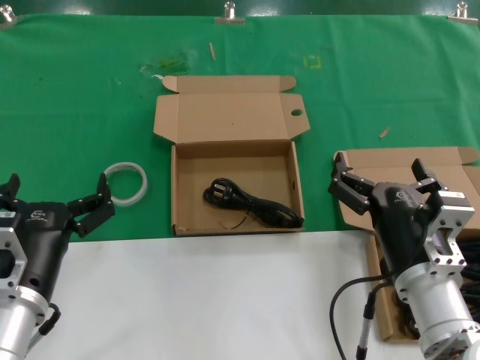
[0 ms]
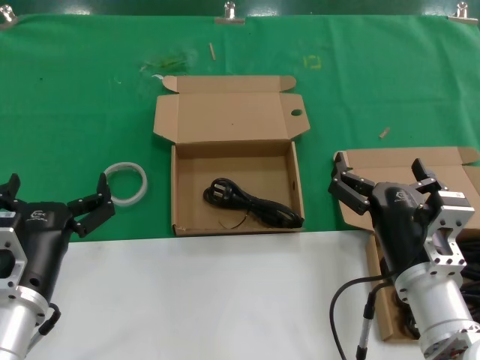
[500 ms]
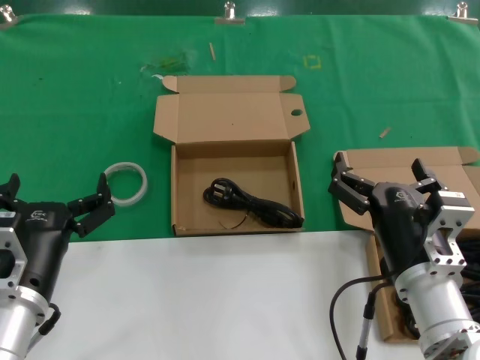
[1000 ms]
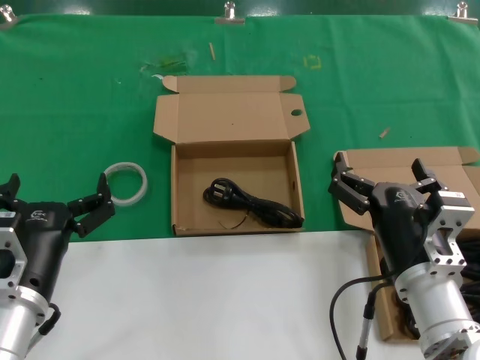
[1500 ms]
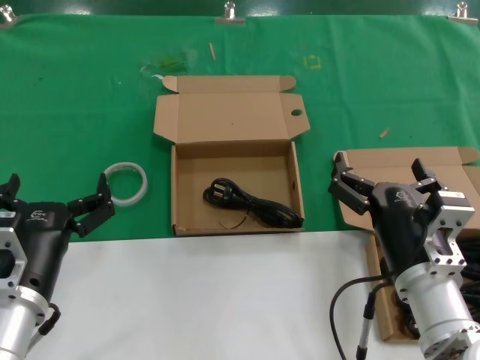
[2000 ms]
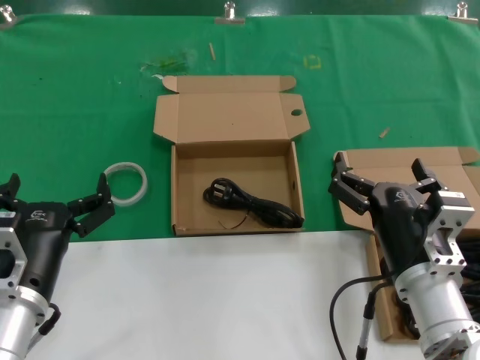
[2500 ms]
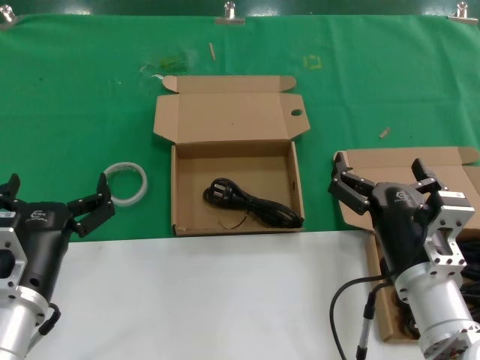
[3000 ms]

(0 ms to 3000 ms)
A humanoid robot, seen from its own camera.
Task of the whole recording: take the parts from the box containing them and put them into an empty box.
0 ms - 3000 ms: Both hands stay put.

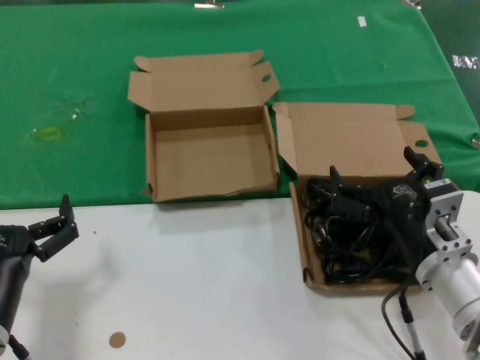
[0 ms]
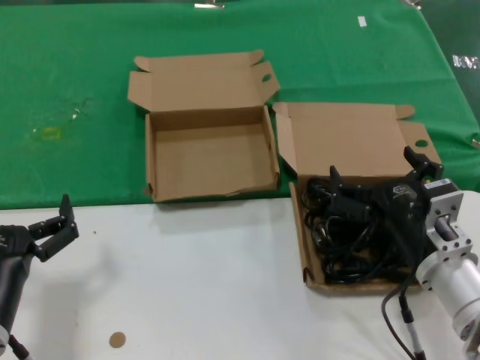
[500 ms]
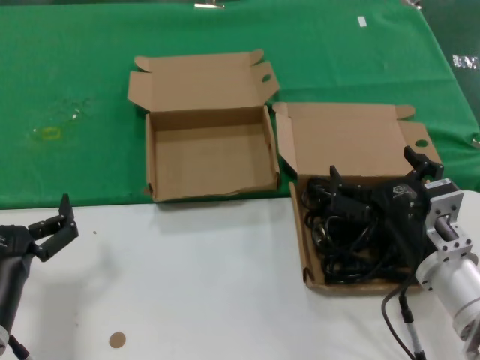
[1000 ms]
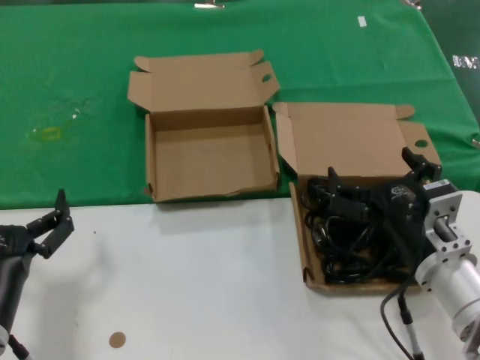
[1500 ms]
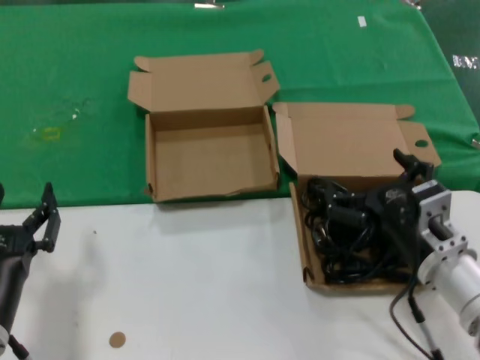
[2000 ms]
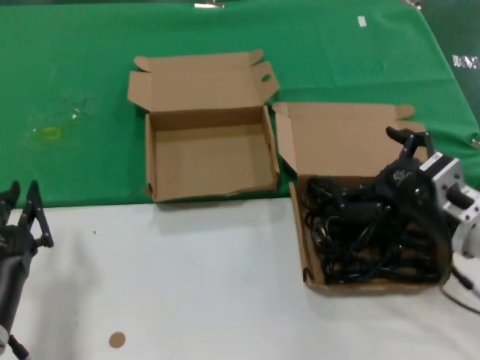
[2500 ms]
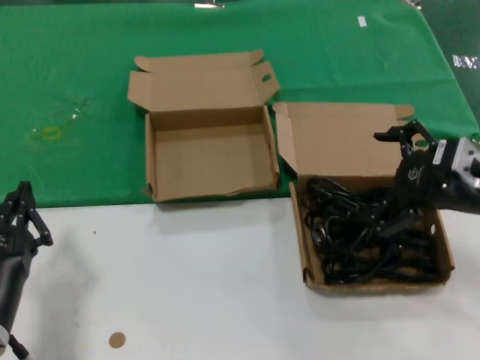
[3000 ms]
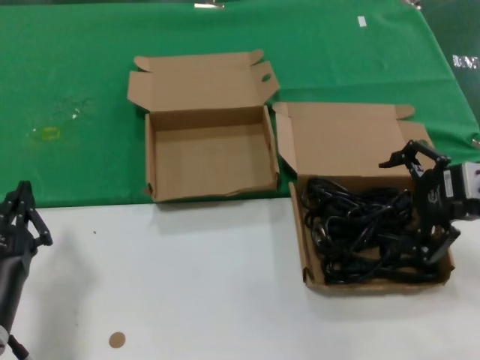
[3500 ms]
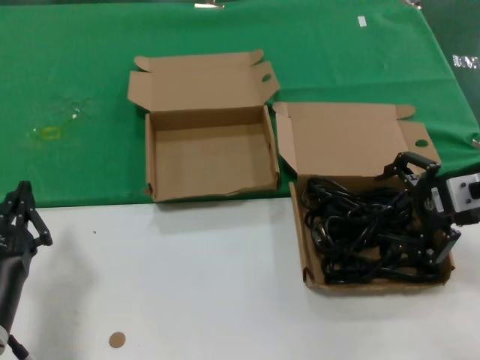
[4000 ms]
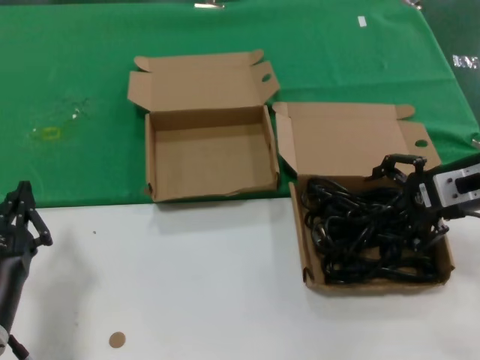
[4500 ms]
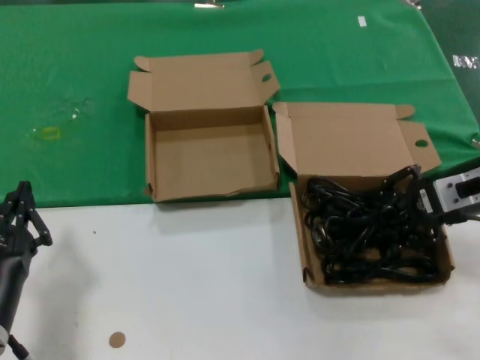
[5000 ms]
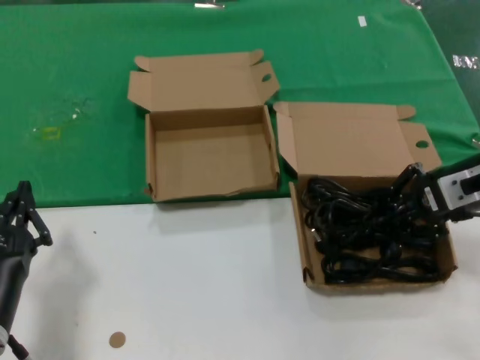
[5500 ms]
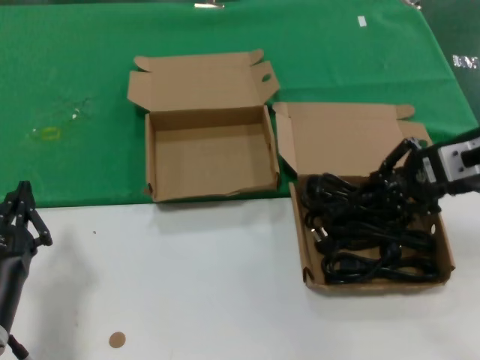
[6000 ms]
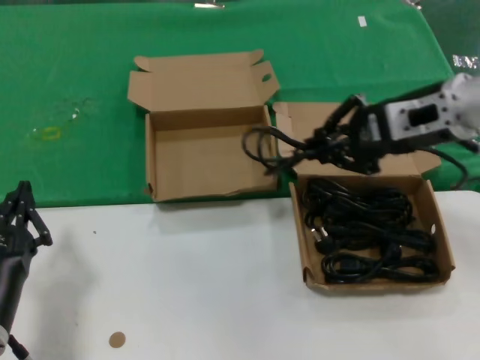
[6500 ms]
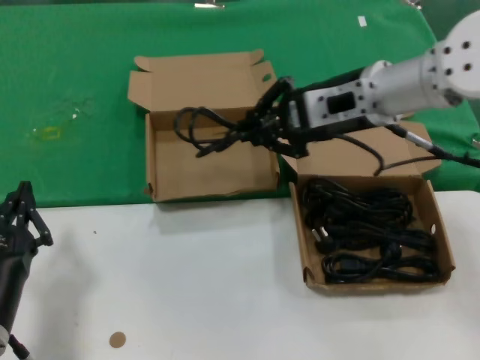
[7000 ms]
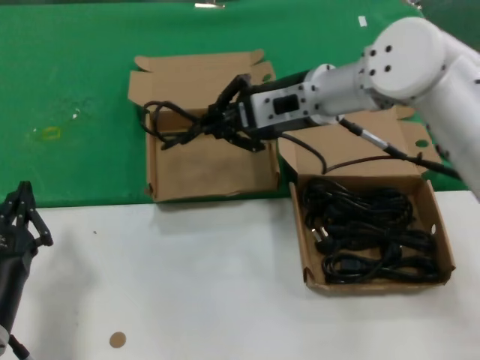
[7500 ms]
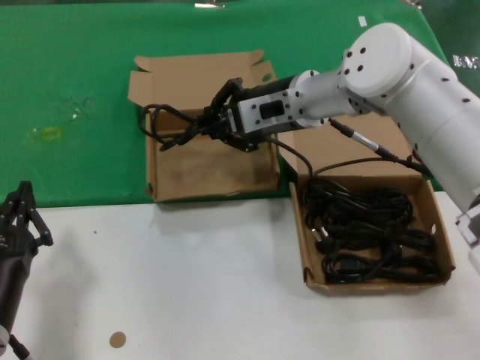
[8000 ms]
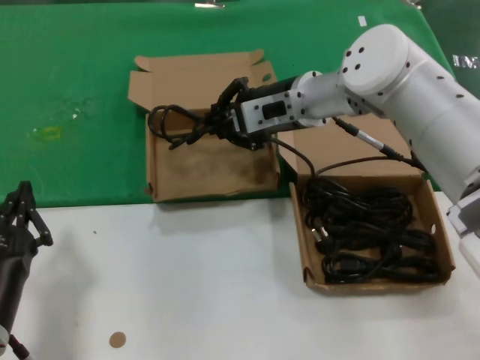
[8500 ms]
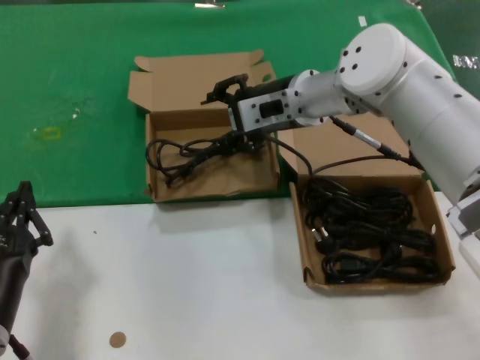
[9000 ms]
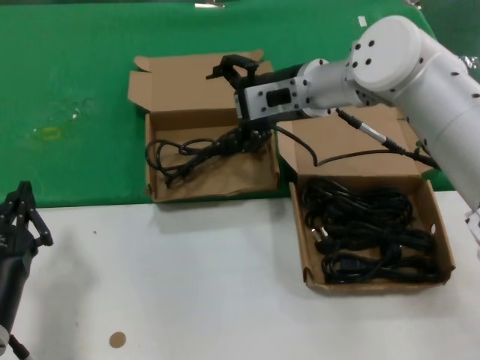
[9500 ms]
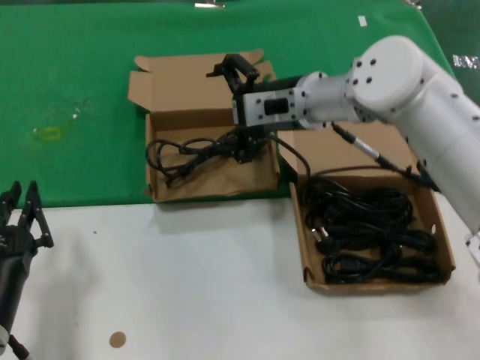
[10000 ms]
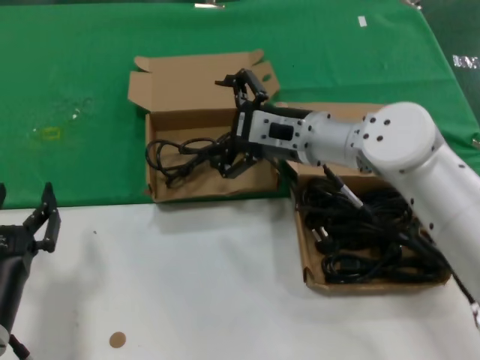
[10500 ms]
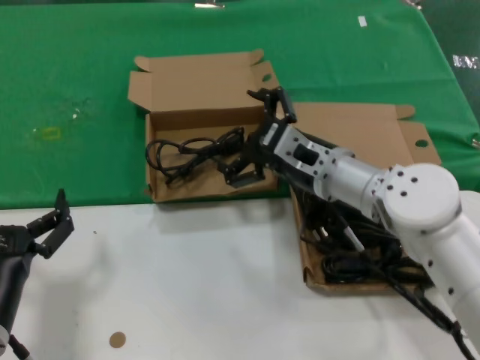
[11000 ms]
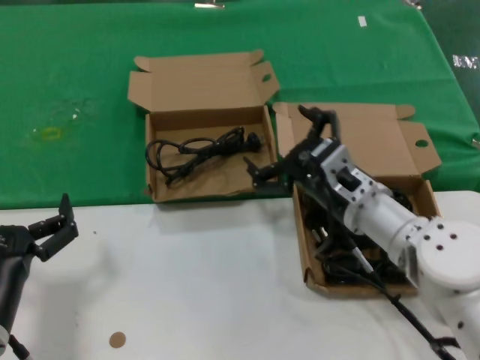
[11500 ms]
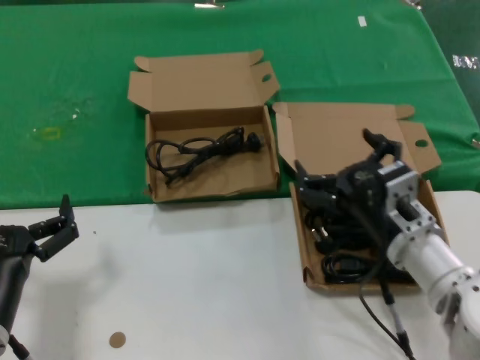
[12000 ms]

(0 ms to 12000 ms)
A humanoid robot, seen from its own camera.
Task of the whole recording: take the parts from the box containing them and put them into an empty box.
Step, 0 ms - 5000 ms: Grasp the data cable.
Step, 5500 ms - 8500 ms: Place the data cable in the another box.
0 ms - 2000 ms: The hands make only small movements.
2000 ms - 4000 ms: The right hand travels upward, to the right and forward by some 20 cm.
4000 ms - 6000 ms: The hands move only a little.
6000 ms - 8000 ms: The right hand goes approximately 25 cm to the left and forward.
8000 ms - 10000 ms: The hands move only a little.
10000 ms - 12000 ms: The right hand shifts some 25 cm backward, downward and to the right.

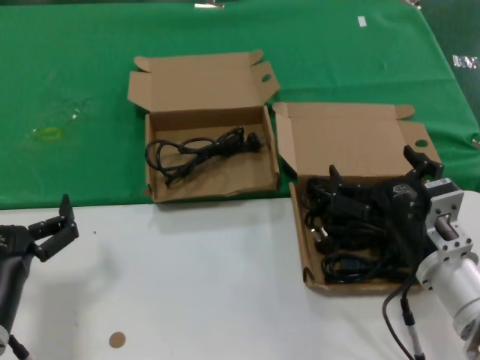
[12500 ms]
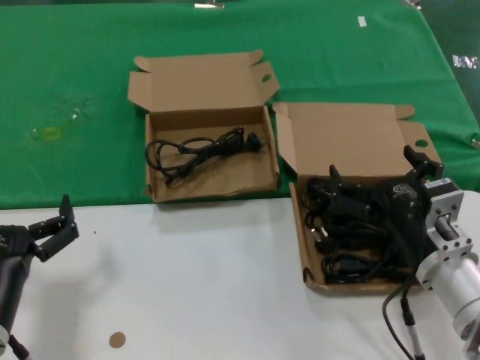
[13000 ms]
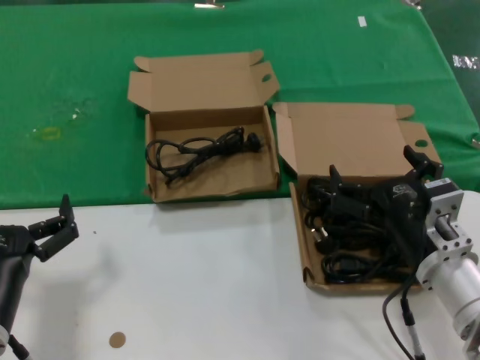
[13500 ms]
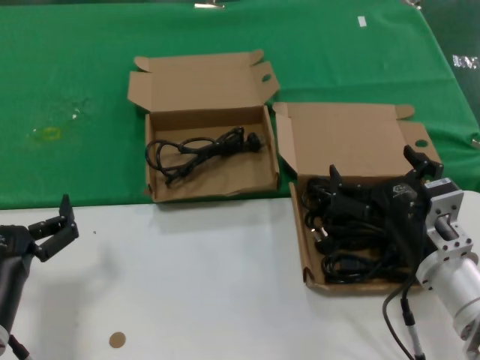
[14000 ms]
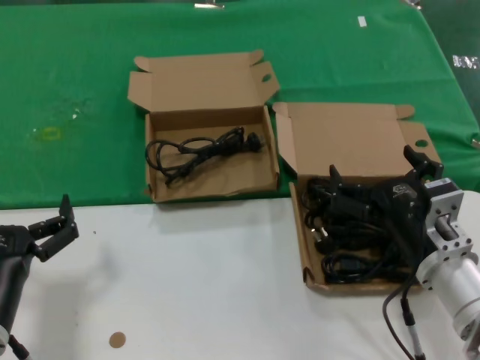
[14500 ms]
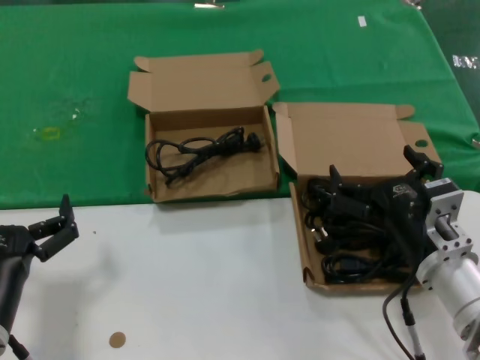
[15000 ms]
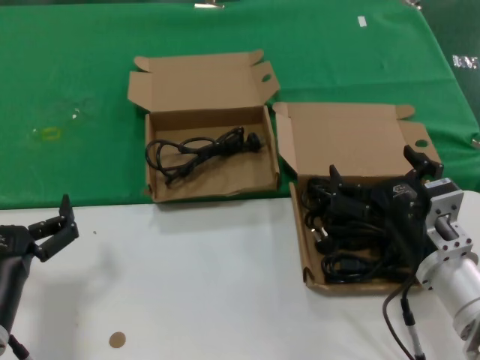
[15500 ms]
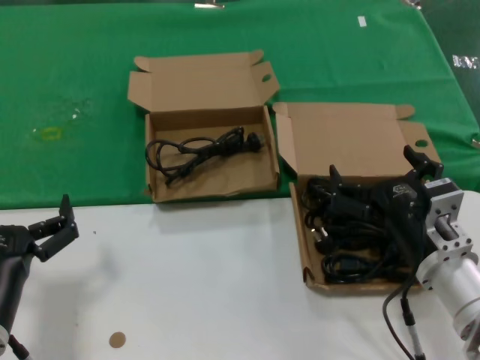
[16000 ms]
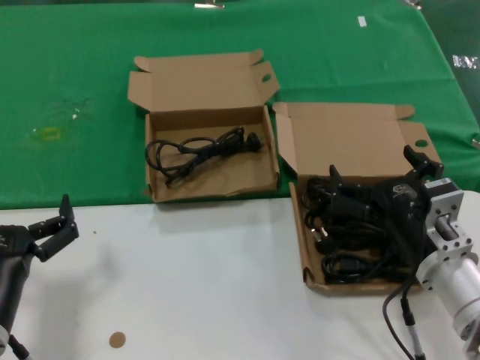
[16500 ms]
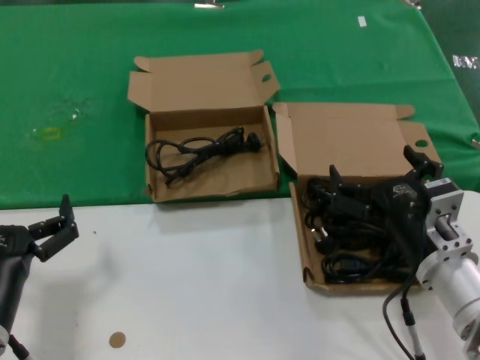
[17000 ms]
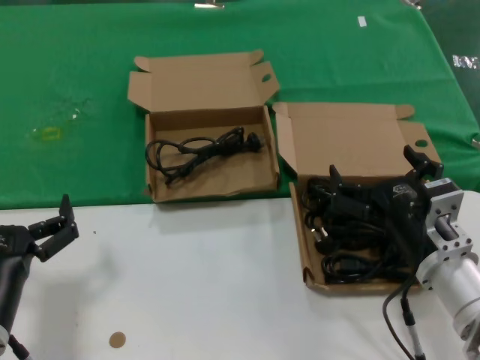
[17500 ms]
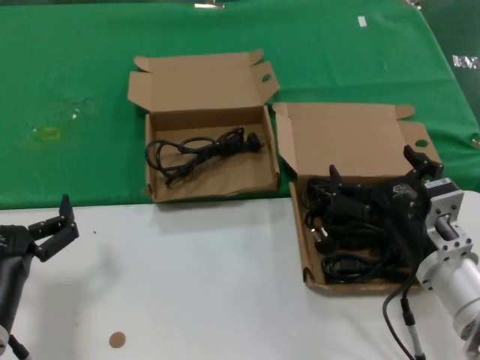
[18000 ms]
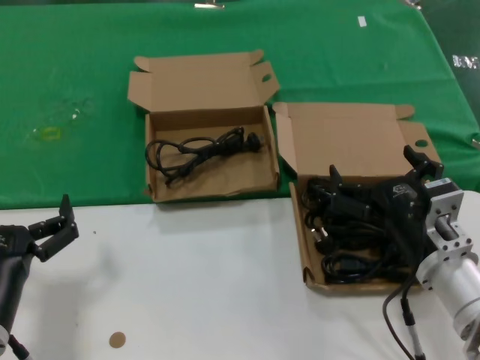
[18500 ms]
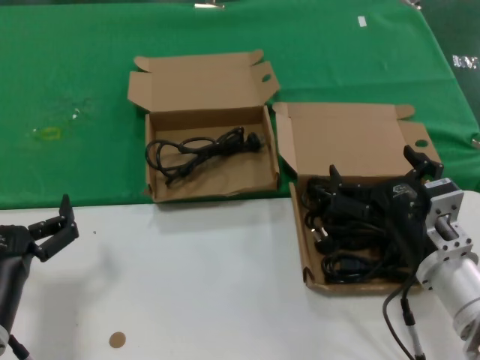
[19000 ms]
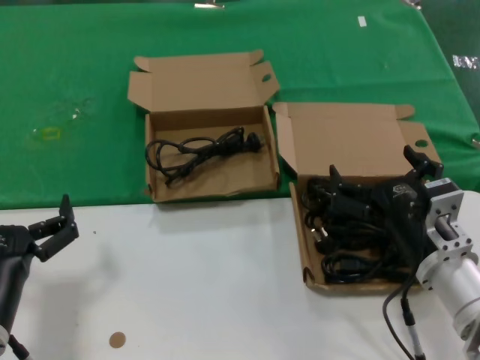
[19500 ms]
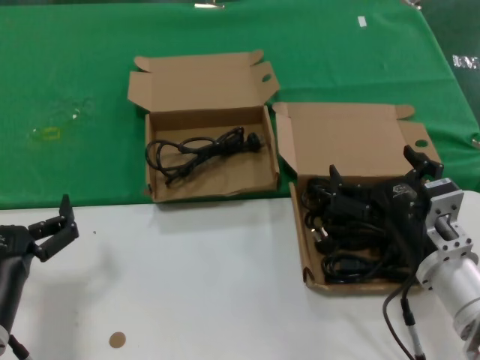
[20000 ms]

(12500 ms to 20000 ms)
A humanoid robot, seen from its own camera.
Task of the whole recording: take the parts from the box containing them and put them into an empty box.
12500 ms - 20000 ms: The two hands keep their place.
